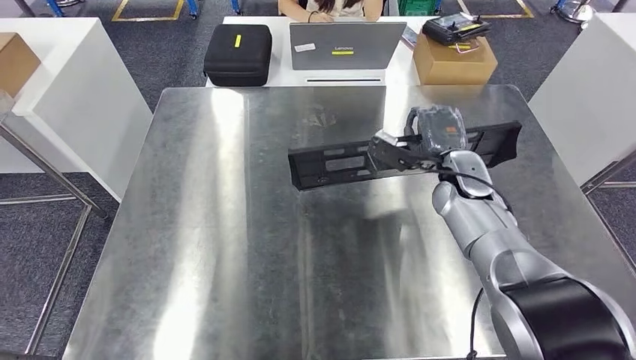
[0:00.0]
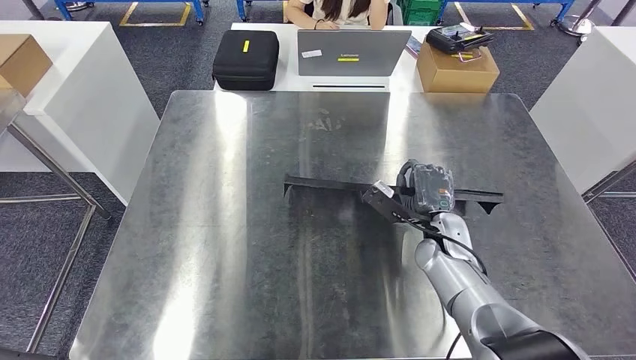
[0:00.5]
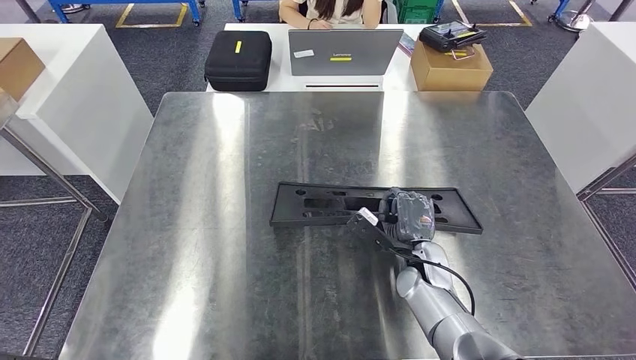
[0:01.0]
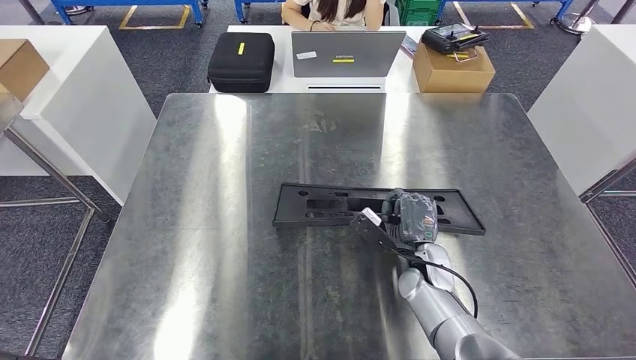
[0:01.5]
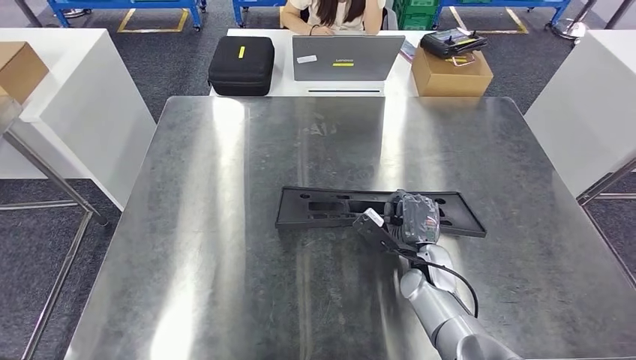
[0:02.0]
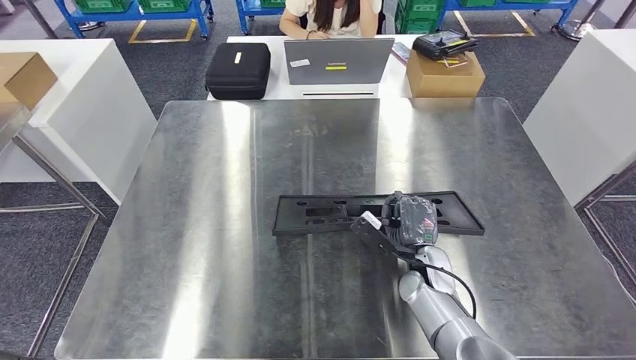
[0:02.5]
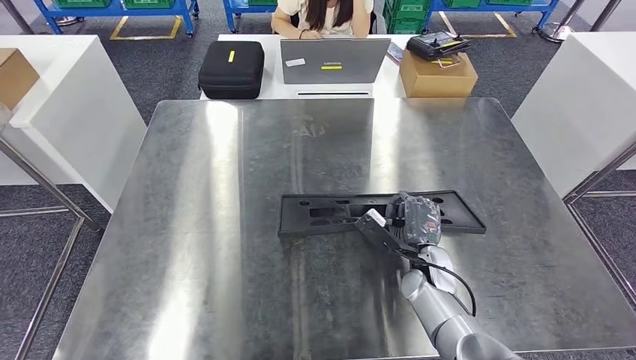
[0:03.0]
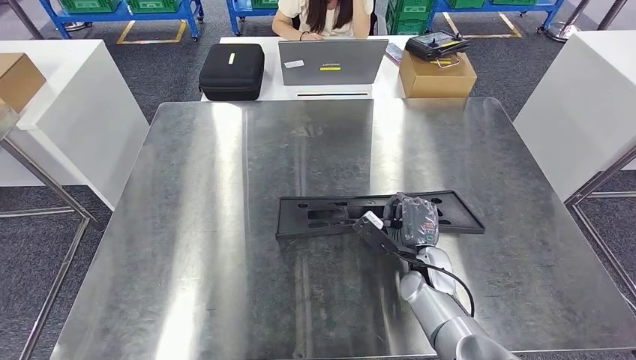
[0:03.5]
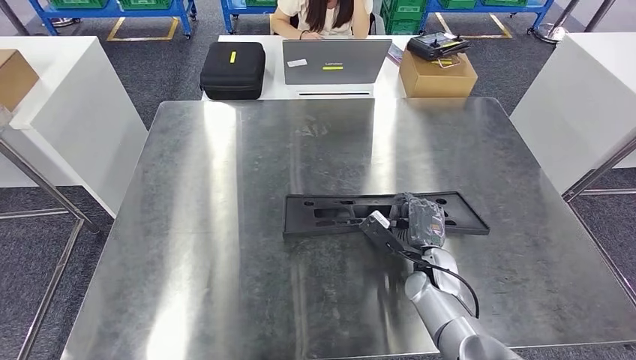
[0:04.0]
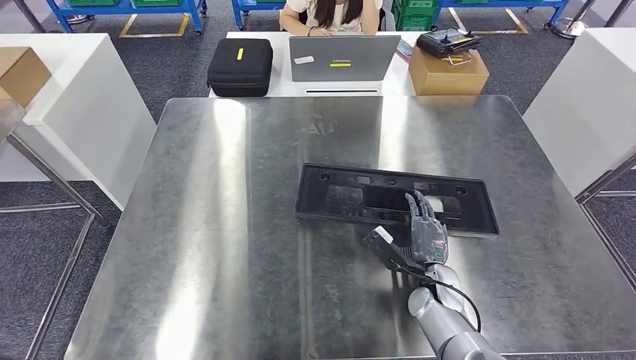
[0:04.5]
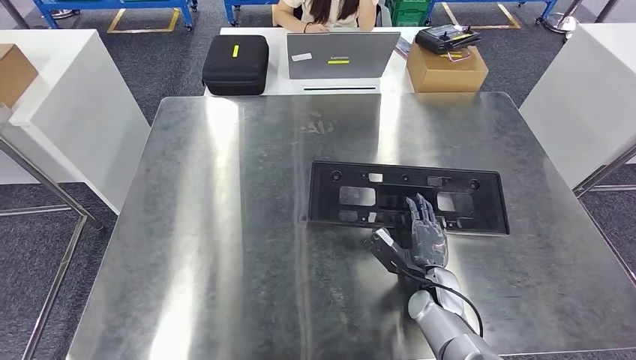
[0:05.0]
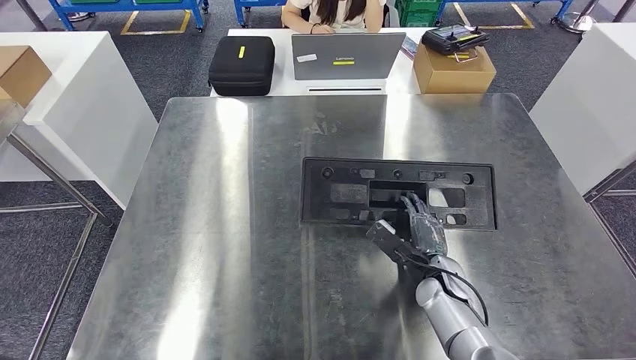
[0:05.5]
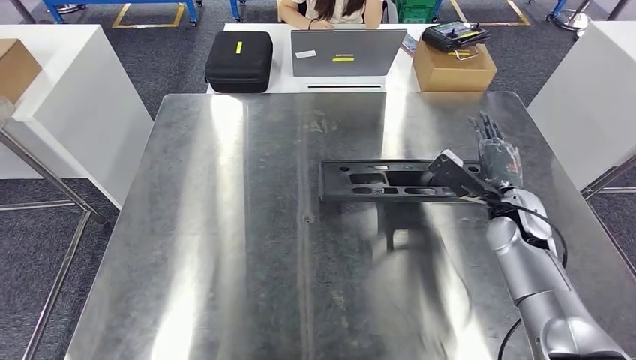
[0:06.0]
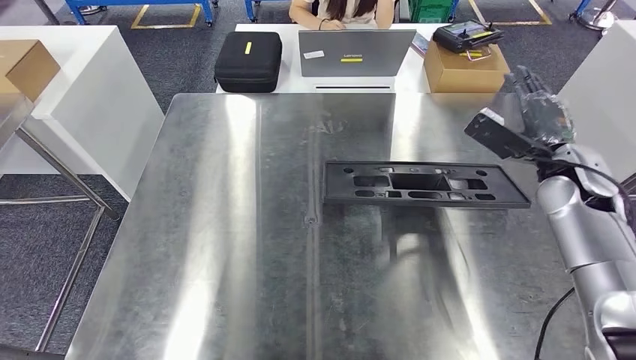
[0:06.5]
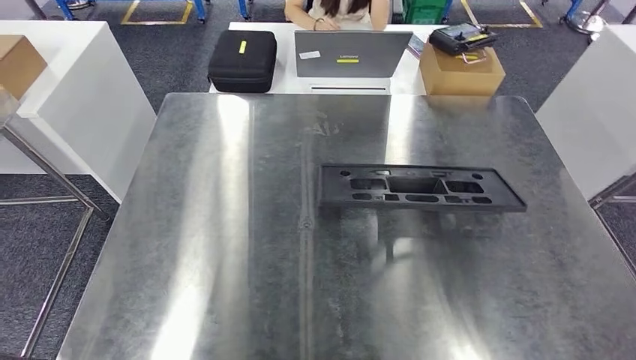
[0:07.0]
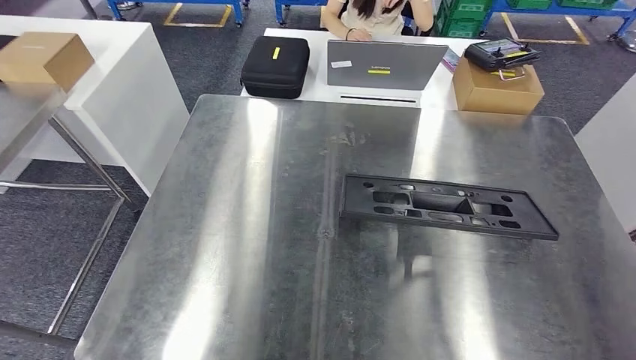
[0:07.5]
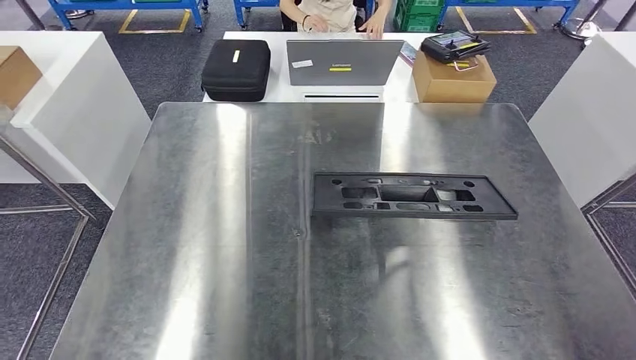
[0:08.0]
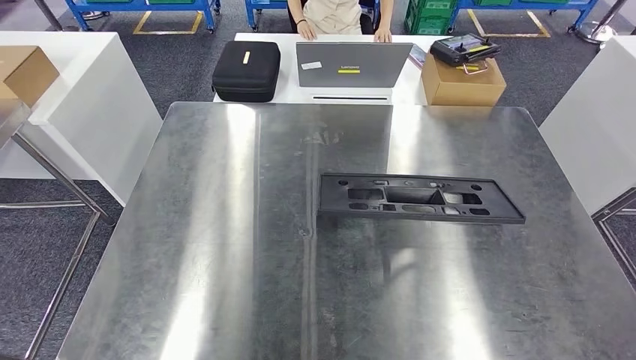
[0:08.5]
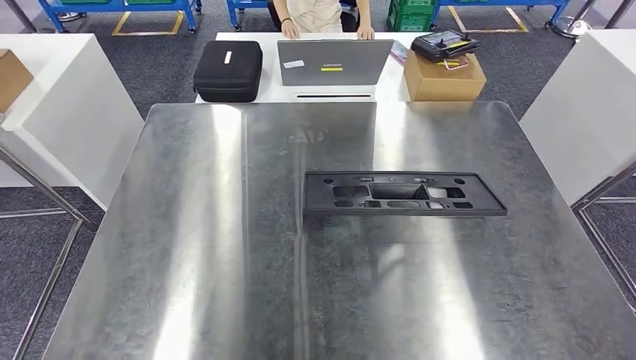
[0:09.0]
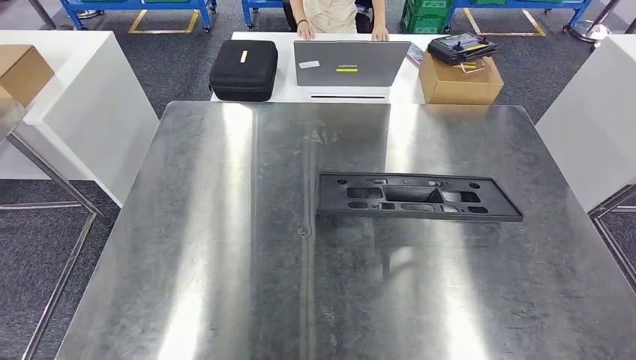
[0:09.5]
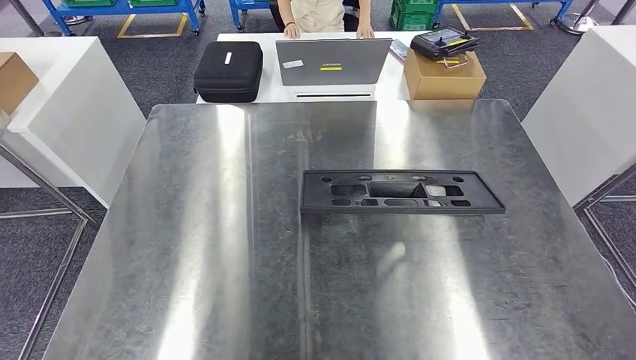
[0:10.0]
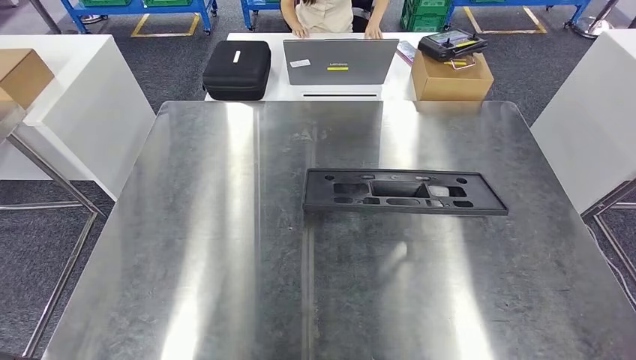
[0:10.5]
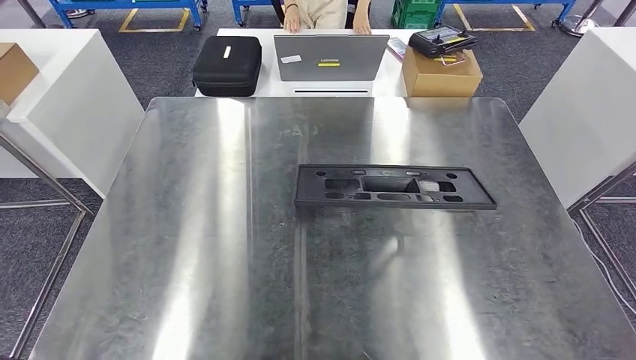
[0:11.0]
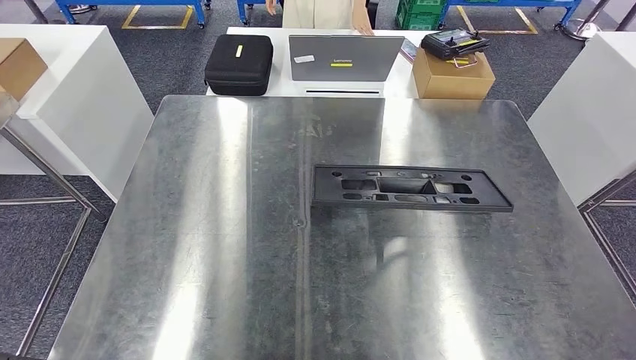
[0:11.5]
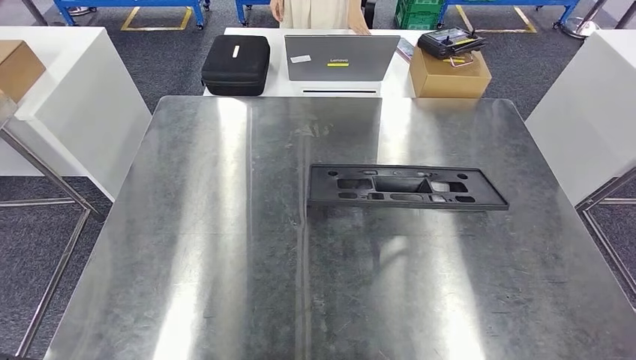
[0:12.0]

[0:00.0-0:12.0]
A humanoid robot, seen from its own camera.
Step, 0:00.0 to 0:06.0: Insert the large material into the corresponding slot on the workbench.
0:08.0 to 0:10.0: The right hand shifts about 60 cm downward and to the left.
0:10.0 to 0:12.0: There are only small adjustments of the hands.

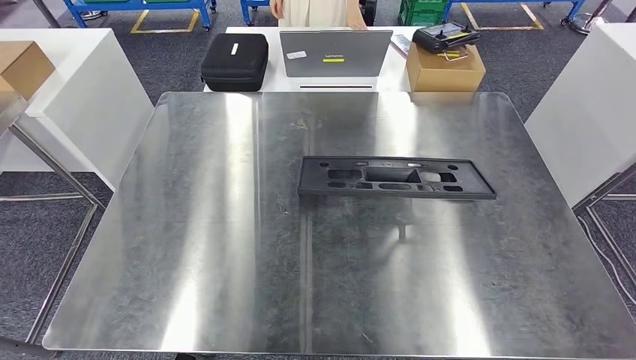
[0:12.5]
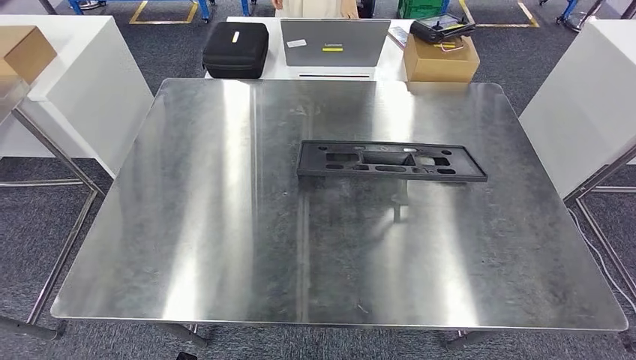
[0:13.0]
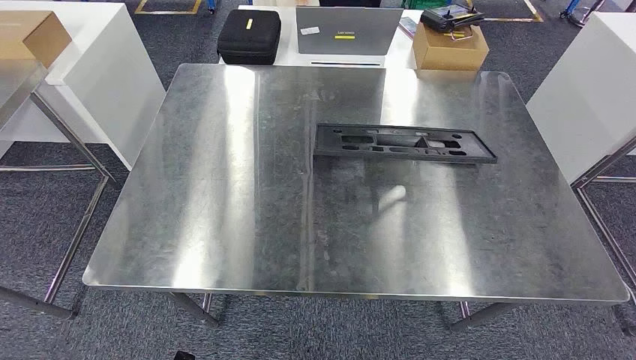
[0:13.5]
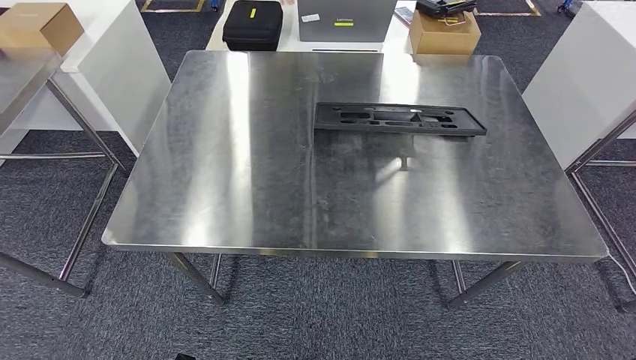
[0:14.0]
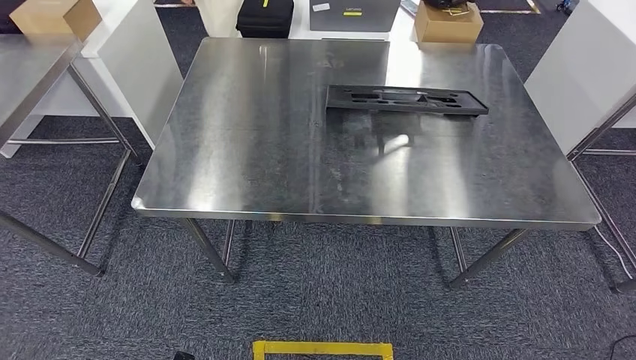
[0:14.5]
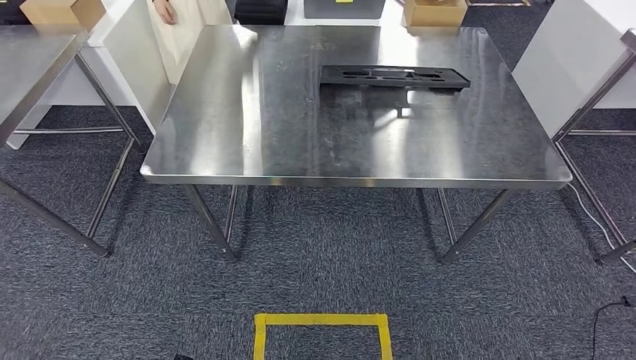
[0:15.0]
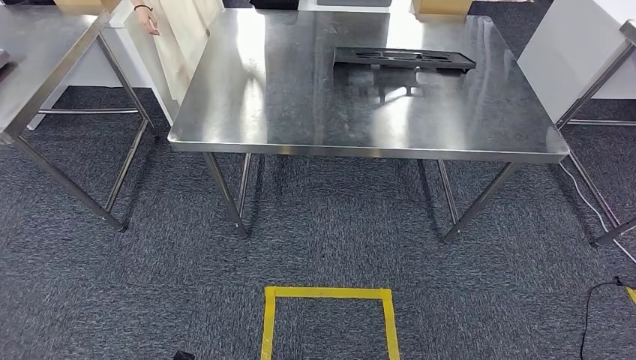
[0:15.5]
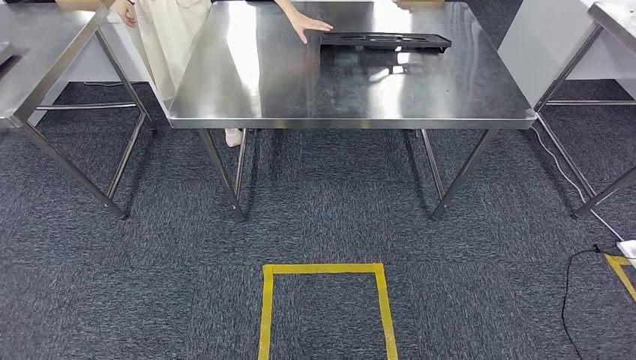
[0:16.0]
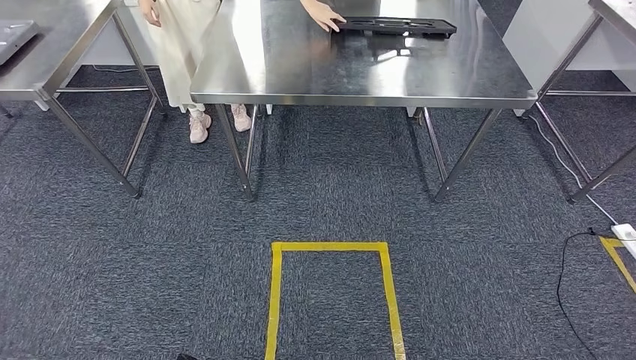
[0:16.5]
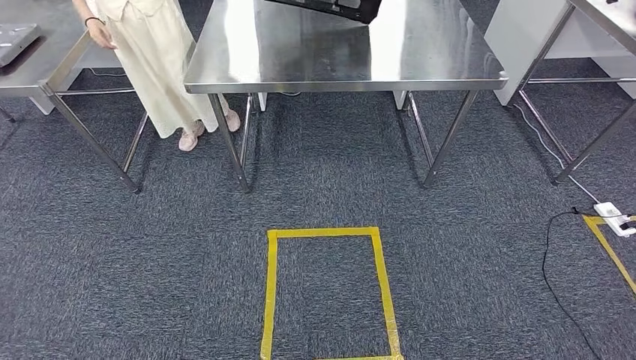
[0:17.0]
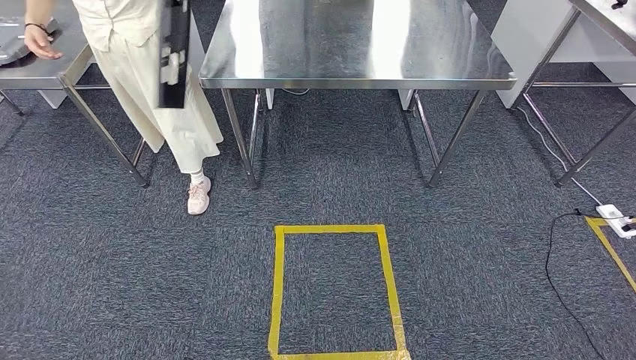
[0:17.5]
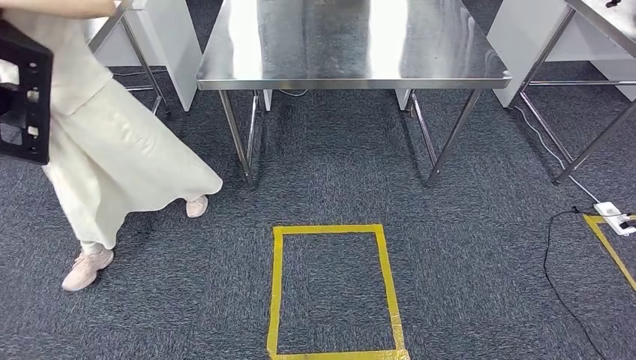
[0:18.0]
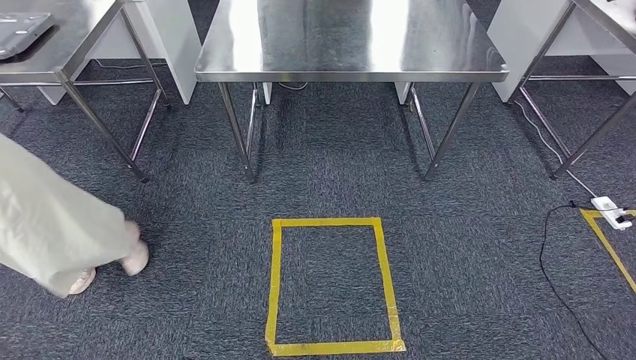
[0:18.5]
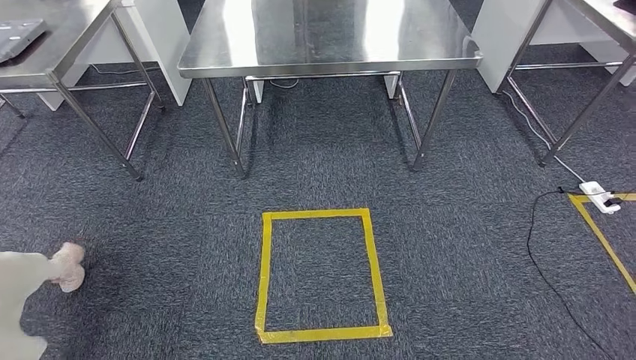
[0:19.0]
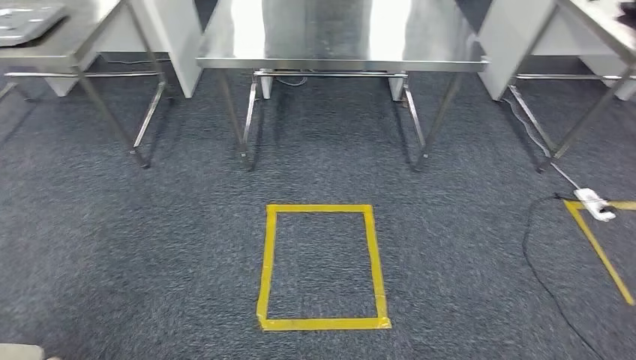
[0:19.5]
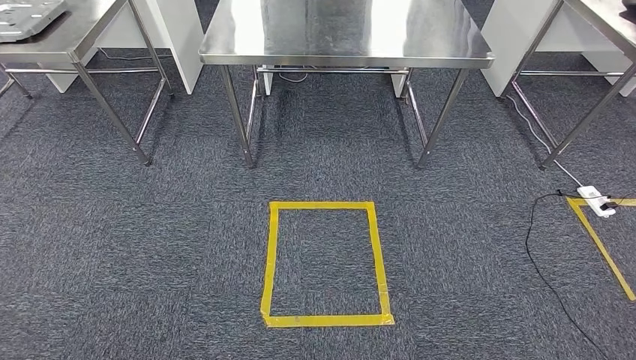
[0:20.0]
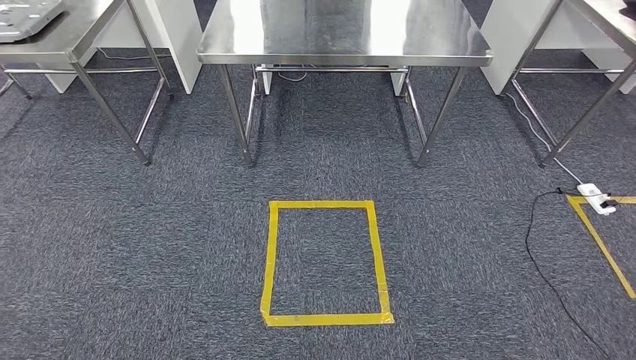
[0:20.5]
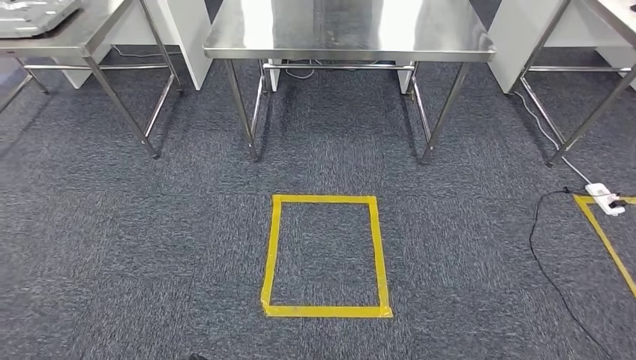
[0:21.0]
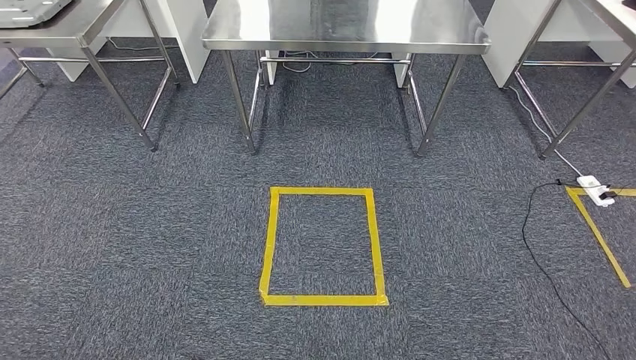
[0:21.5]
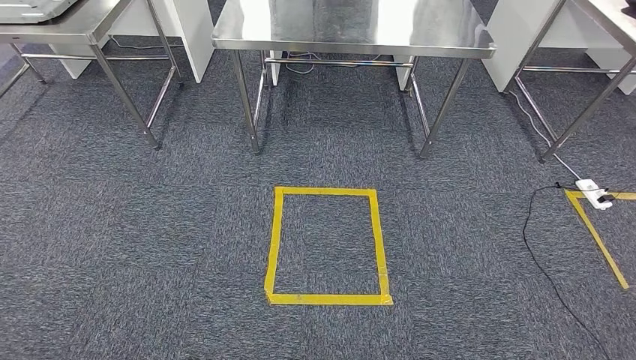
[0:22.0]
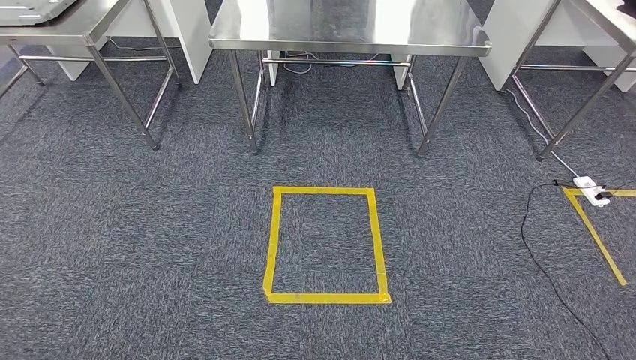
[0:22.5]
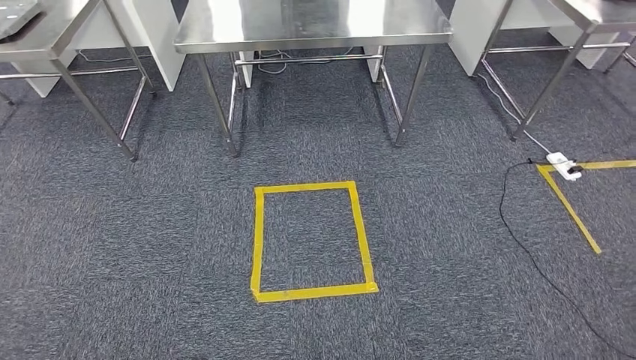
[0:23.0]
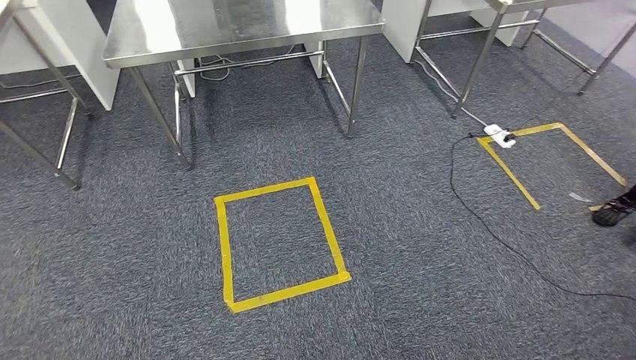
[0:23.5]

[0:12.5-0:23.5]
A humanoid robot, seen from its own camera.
0:20.0 to 0:21.5: The two hands keep their place.
